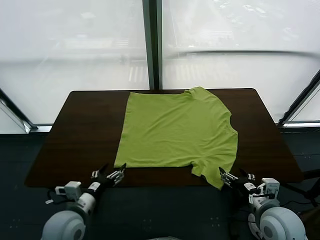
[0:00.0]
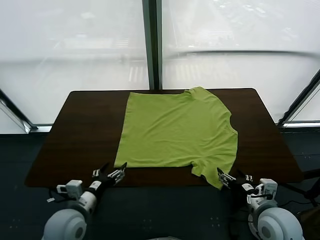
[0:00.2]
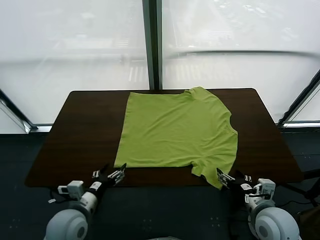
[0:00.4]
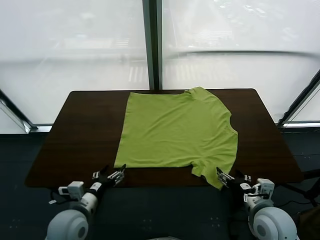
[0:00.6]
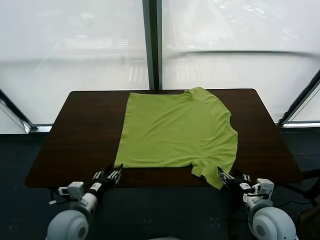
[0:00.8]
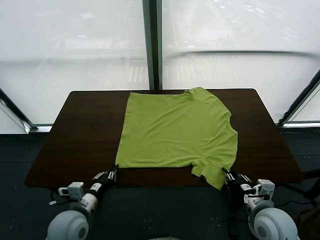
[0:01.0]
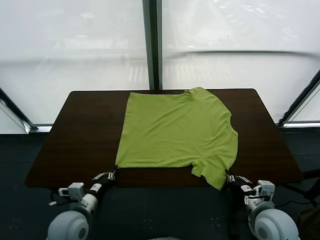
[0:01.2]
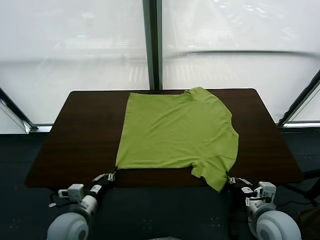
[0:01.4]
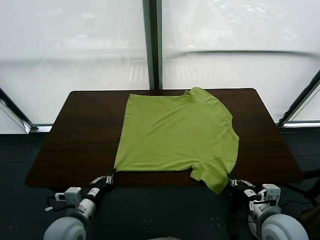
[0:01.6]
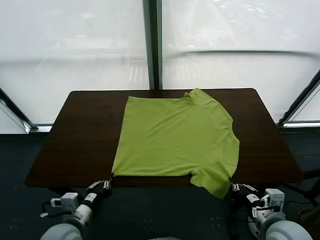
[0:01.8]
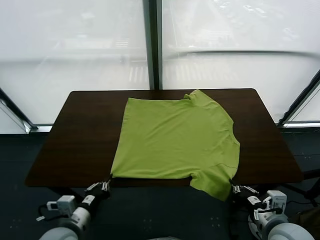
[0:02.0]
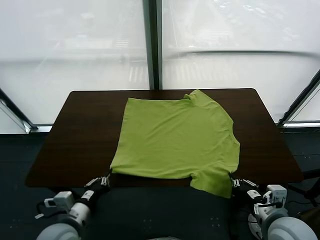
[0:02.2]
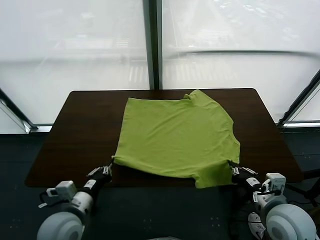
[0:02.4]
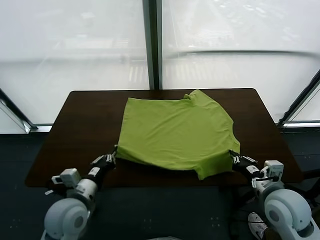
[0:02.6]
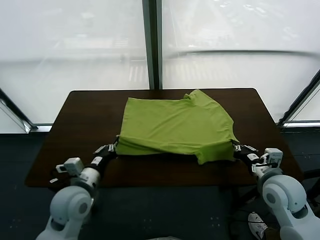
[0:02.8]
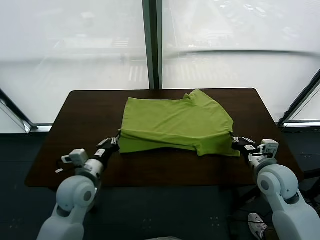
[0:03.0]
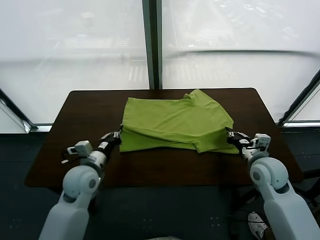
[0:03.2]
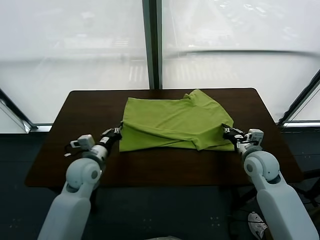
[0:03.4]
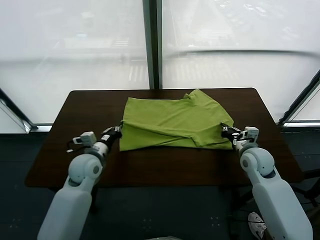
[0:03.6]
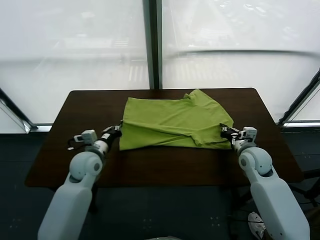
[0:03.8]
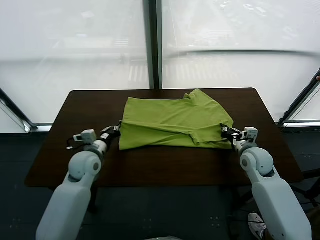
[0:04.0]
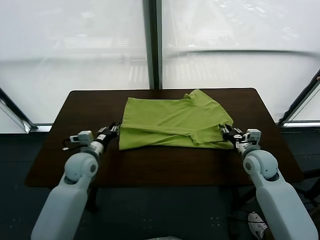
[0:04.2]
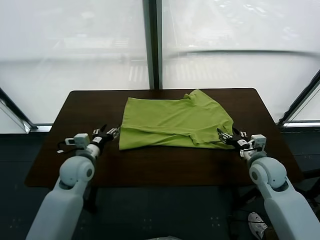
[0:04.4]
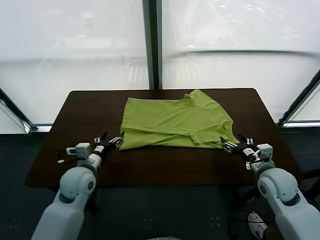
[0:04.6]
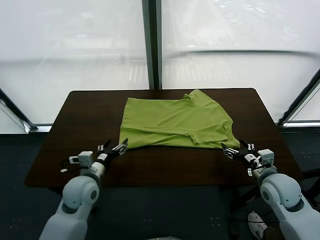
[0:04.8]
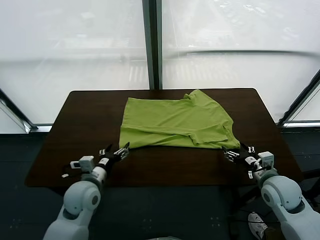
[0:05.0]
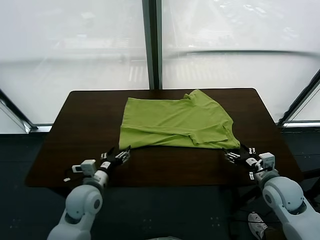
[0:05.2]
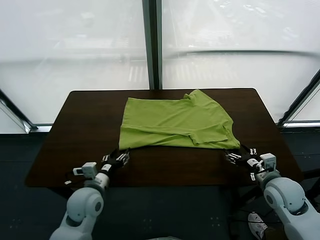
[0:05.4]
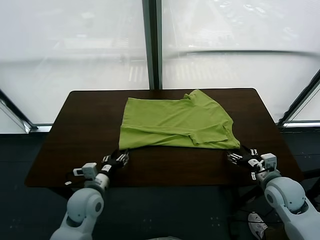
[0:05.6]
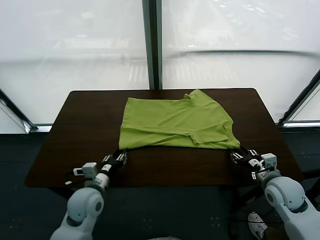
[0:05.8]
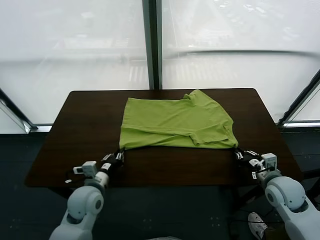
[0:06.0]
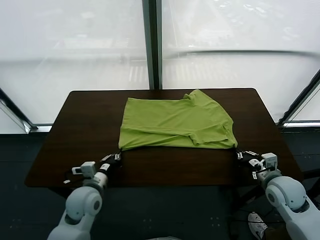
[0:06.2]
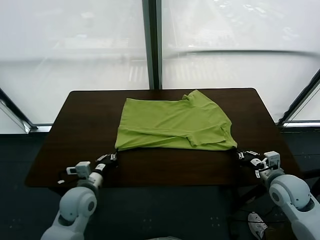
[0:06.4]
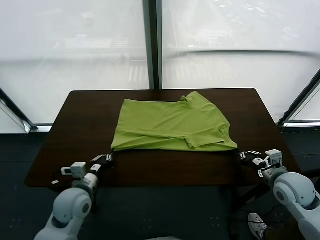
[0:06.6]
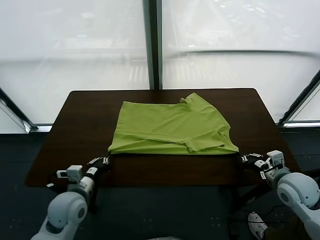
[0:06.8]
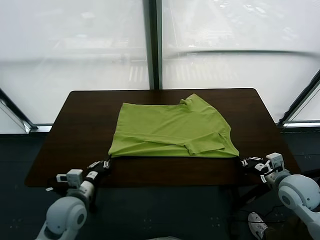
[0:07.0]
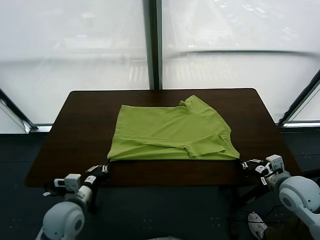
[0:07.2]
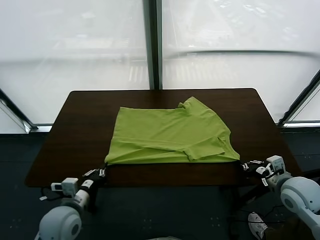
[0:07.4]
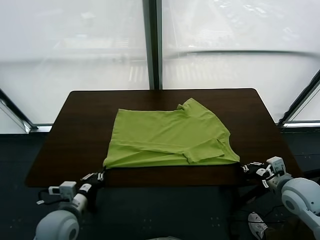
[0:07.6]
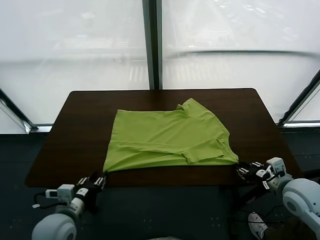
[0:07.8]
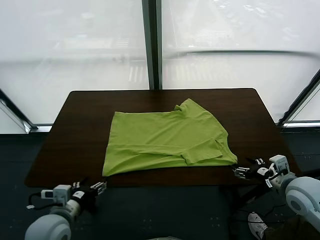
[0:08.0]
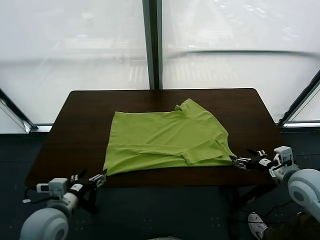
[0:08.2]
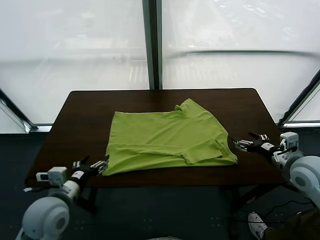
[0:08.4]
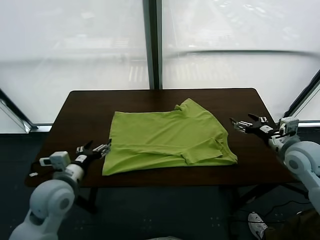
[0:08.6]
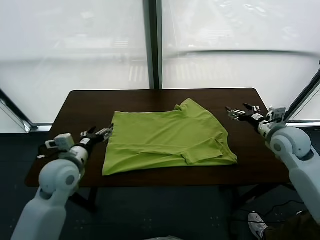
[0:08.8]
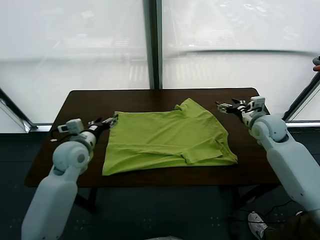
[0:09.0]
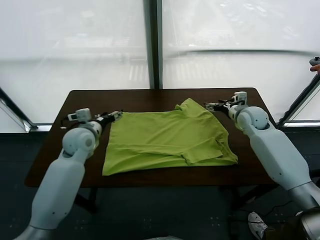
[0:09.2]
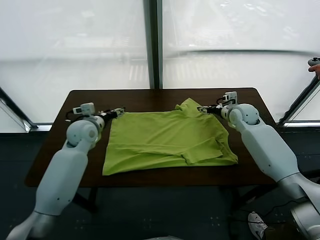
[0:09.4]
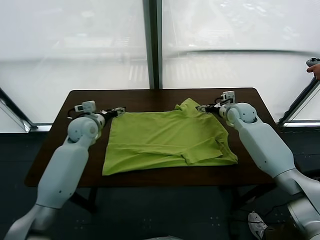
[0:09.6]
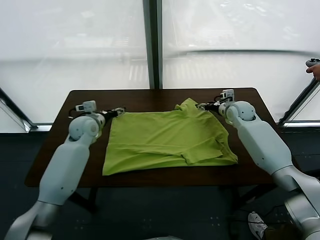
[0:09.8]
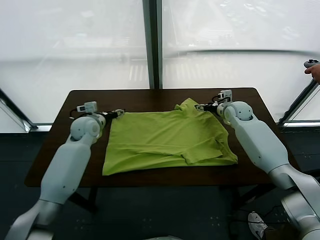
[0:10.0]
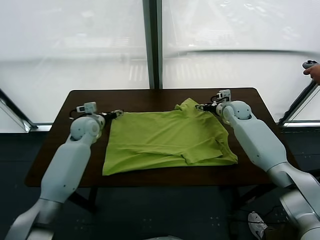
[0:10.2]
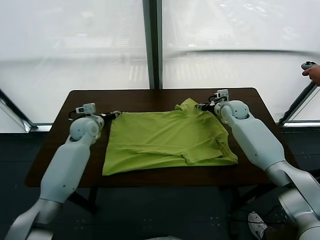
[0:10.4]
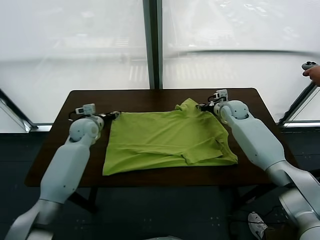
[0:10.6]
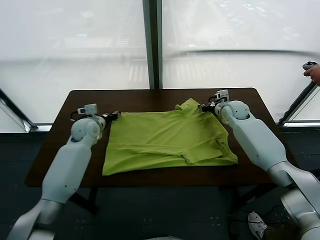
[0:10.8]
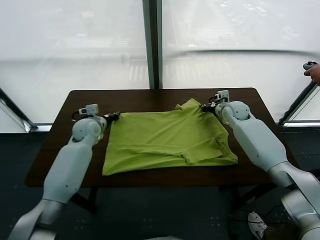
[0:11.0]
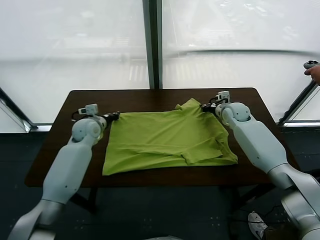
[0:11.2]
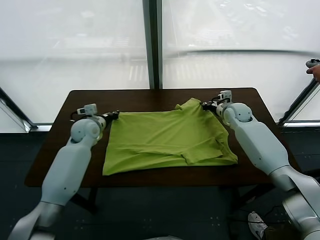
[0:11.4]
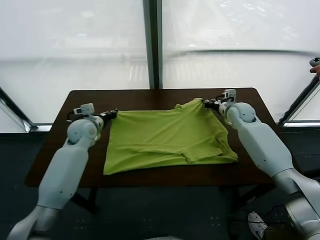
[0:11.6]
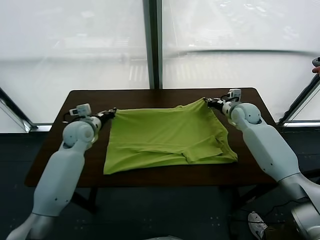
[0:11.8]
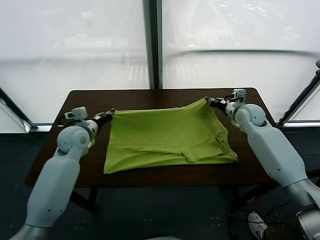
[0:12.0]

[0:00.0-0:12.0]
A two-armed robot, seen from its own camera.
Task of the whole recording: fold and organize the clothes.
Step, 0:00.0 to 0:01.4: use both grippers simultaneously to clamp the lower edge of the clothing fabric.
Step, 0:01.6 to 0:04.4: use both grippers to drag the lower edge of the fabric forward and fold it over the upper edge.
Step, 0:04.6 to 0:08.0: Drag the clothes downward with both gripper.
Step, 0:08.2 to 0:11.2: use both grippers simultaneously to clamp the upper edge of the clothing fabric.
0:01.6 to 0:03.0: Both grippers travel together forward, roughly 20 cm.
0:03.0 to 0:04.4: The right gripper is displaced backward by some 10 cm, and opens up. Meanwhile the left gripper opens up.
0:04.4 to 0:06.0: The right gripper closes; the left gripper ends up about 5 cm from where it was, and closes up.
0:06.0 to 0:07.6: The right gripper heads upward, covering approximately 5 cm, and opens; the left gripper shifts approximately 10 cm backward, and opens.
0:07.6 to 0:09.0: Both grippers travel together forward, some 25 cm. The left gripper opens its fingers.
0:09.0 to 0:10.4: The right gripper closes its fingers. Meanwhile the left gripper travels forward by about 10 cm.
0:10.4 to 0:12.0: The left gripper is displaced backward by approximately 10 cm, and closes; the right gripper is displaced backward and upward by approximately 10 cm.

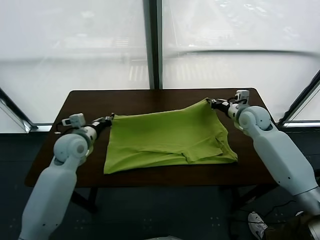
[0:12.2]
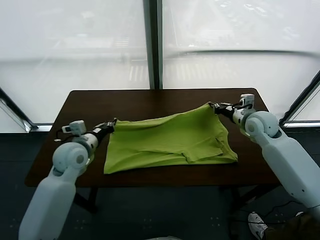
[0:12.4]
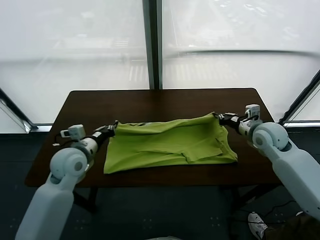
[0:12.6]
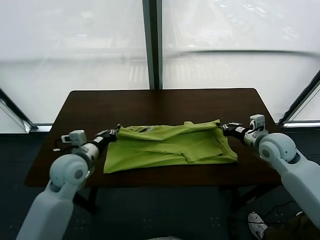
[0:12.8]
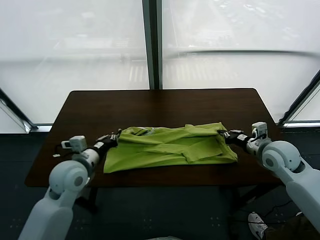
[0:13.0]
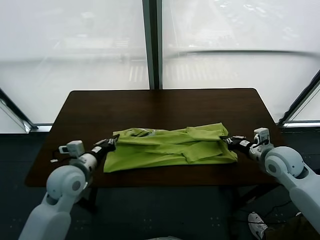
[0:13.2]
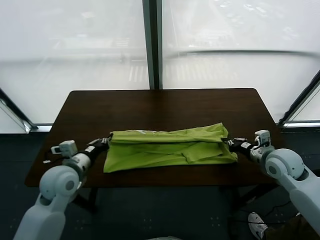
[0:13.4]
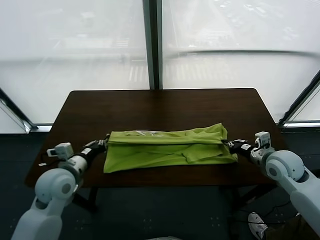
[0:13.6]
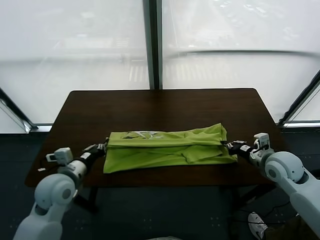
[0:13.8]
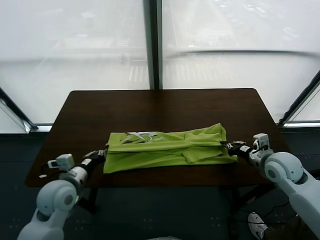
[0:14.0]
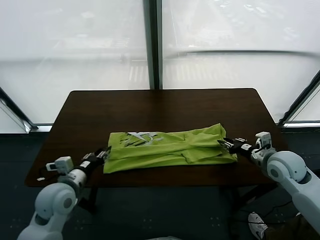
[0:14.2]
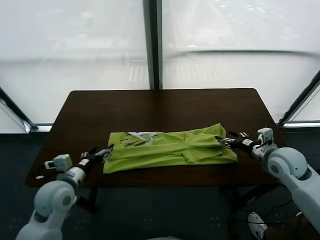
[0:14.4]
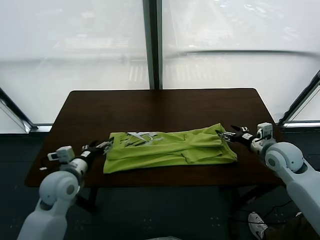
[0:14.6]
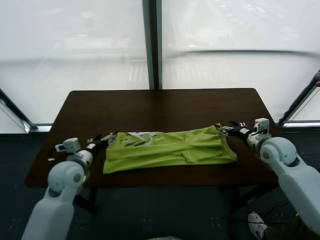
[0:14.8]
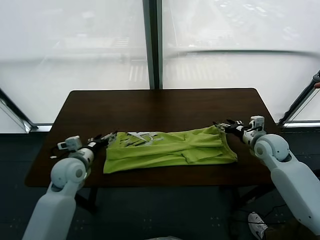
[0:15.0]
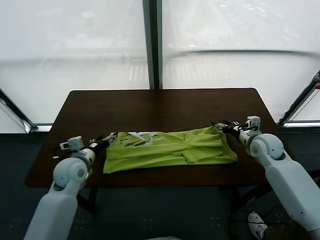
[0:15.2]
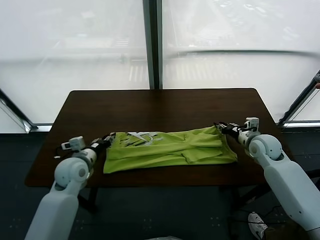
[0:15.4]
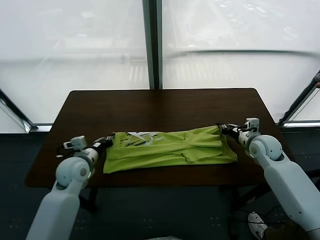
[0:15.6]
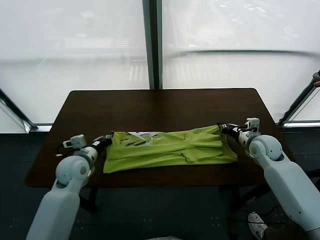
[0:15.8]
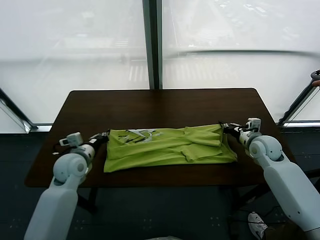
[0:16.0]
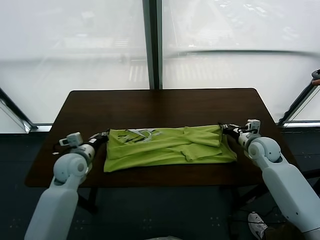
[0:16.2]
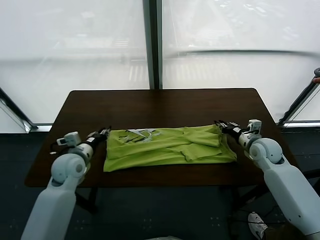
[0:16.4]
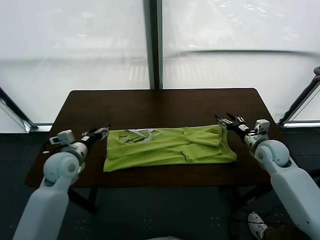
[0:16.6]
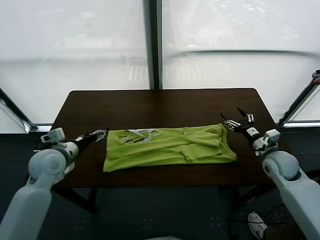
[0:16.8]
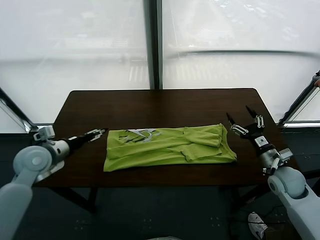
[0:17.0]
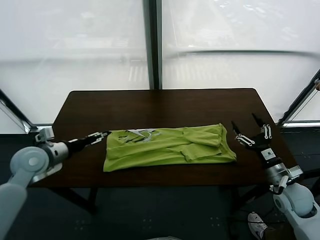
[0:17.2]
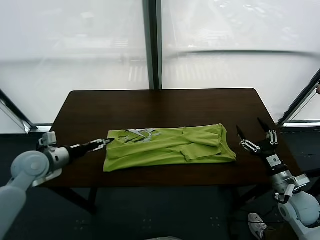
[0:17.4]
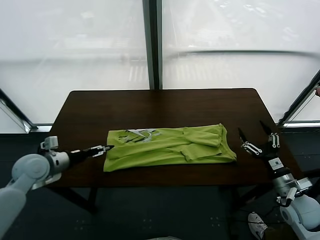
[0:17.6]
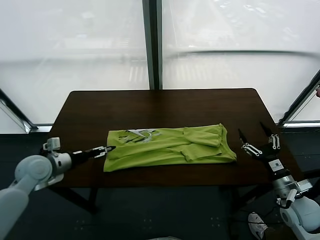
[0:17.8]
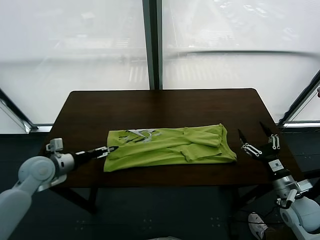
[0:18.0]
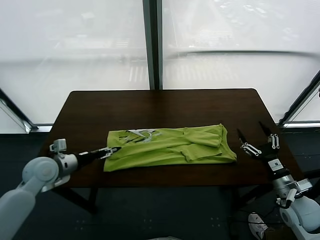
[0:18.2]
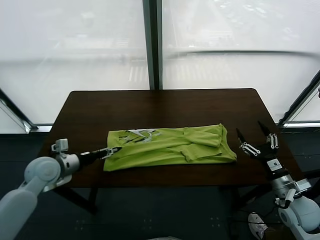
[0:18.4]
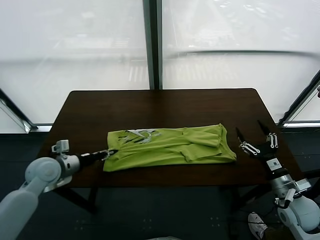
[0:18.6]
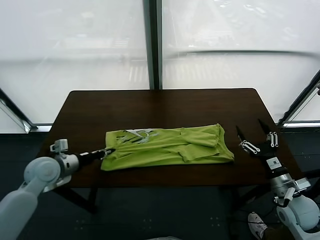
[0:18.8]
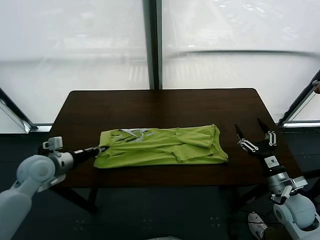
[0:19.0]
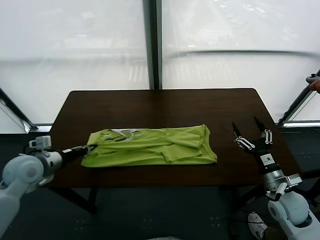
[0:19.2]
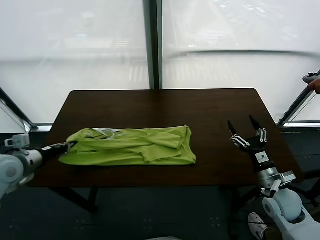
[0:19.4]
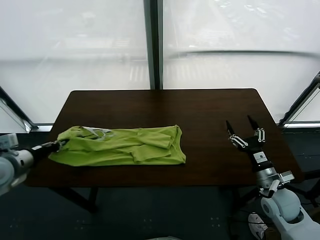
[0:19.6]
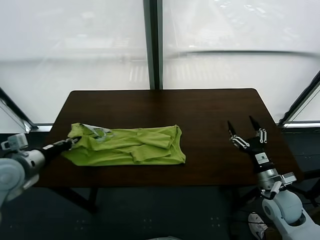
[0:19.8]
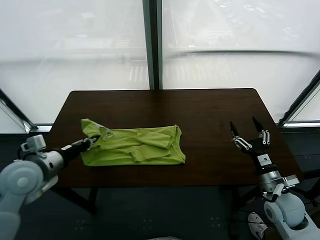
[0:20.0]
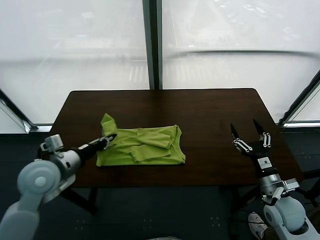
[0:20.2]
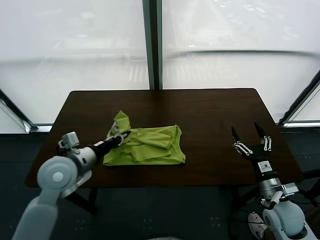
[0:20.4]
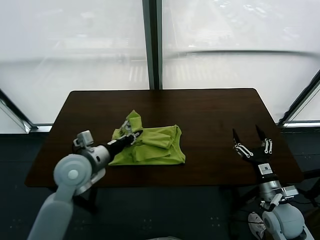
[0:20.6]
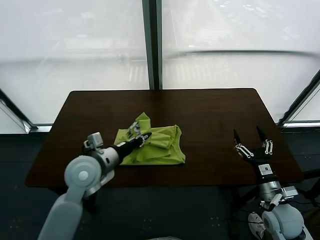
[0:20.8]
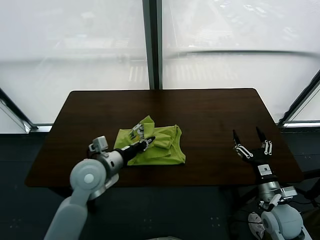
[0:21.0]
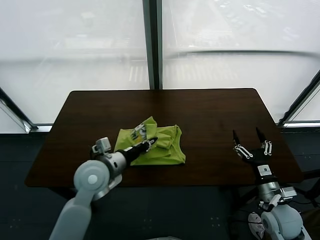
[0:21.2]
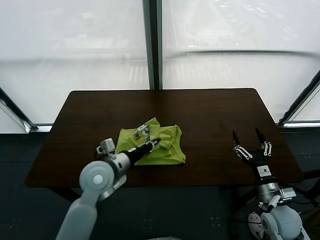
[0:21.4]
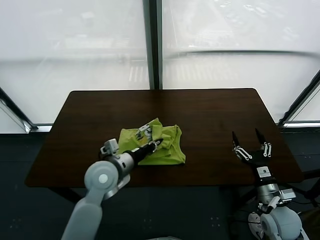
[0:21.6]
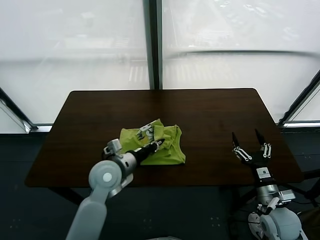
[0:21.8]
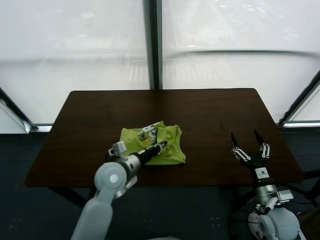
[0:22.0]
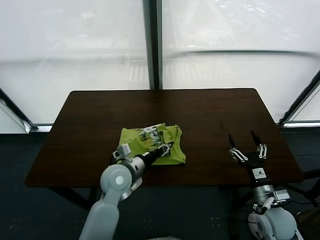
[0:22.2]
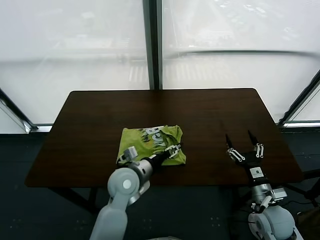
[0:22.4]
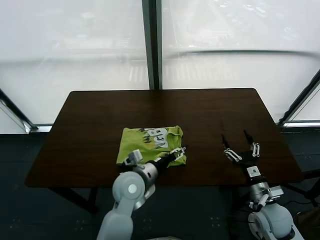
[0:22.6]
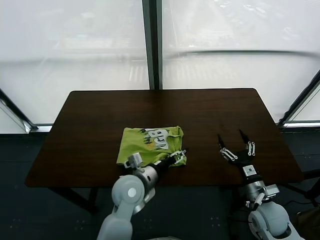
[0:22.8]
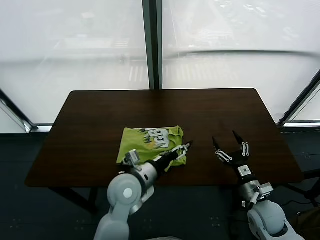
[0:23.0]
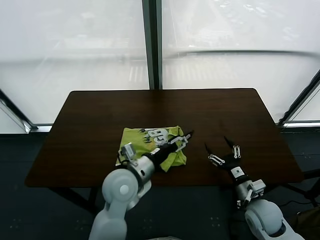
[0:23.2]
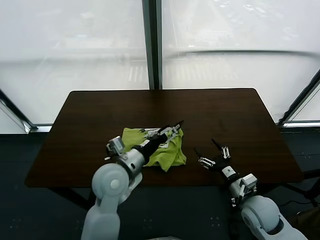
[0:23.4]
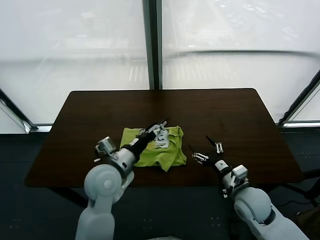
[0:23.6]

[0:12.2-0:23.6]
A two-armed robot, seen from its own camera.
Task of the whole recording: fold and organize the clothes.
Step, 0:12.2 to 0:14.4: use both grippers to drag the upper edge of the fabric backward and fold it over the lower edge.
Step, 0:14.6 to 0:18.6: use the left gripper to clamp the left edge of the fabric.
Step, 0:18.8 to 0:23.0: use the left gripper to drag the left edge of the fabric to the left and folds it over the right edge.
0:12.2 to 0:13.6: Both grippers travel together backward, about 10 cm.
0:13.6 to 0:15.0: The two grippers go some 10 cm forward. The left gripper opens. Meanwhile the right gripper opens up.
0:15.0 to 0:16.4: The left gripper closes up; the right gripper closes, then reopens.
0:16.4 to 0:17.8: The left gripper shifts approximately 10 cm to the left, and opens up, while the right gripper goes some 15 cm backward.
0:17.8 to 0:19.4: The left gripper shifts some 10 cm upward and to the left, and closes its fingers. Meanwhile the right gripper shifts by roughly 5 cm.
0:19.4 to 0:20.8: The left gripper is displaced to the right by roughly 25 cm.
0:20.8 to 0:22.2: The left gripper goes approximately 10 cm to the right and downward, and opens.
0:22.2 to 0:23.6: The right gripper moves to the left and forward, roughly 10 cm. The left gripper heads upward, covering about 5 cm, and opens its fingers.
